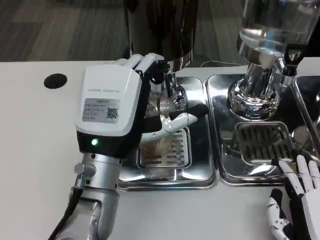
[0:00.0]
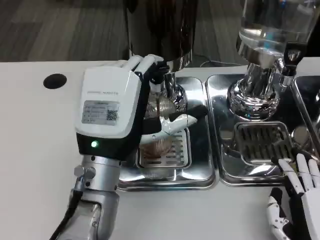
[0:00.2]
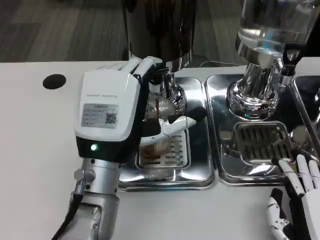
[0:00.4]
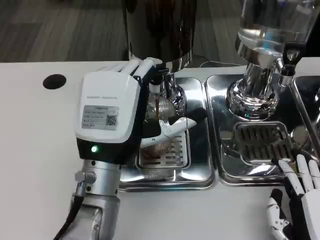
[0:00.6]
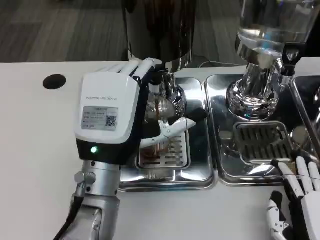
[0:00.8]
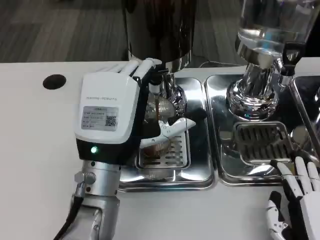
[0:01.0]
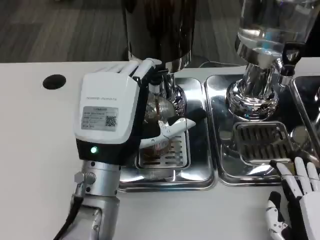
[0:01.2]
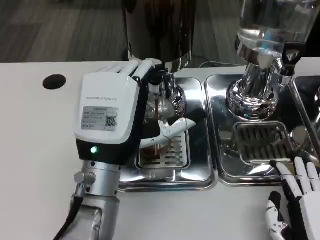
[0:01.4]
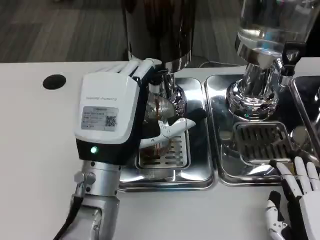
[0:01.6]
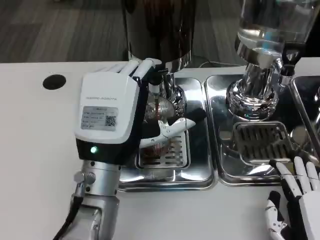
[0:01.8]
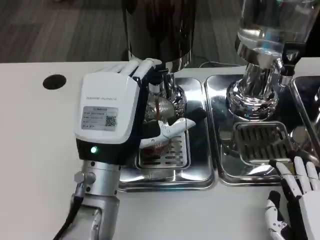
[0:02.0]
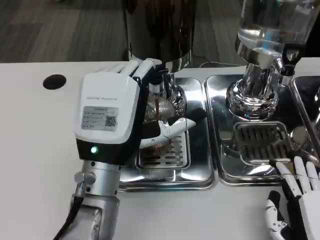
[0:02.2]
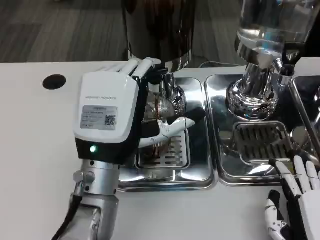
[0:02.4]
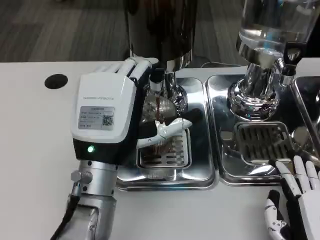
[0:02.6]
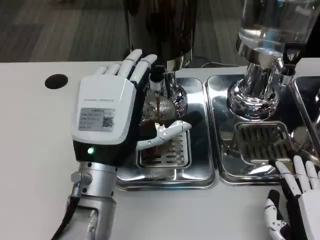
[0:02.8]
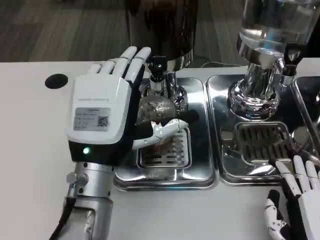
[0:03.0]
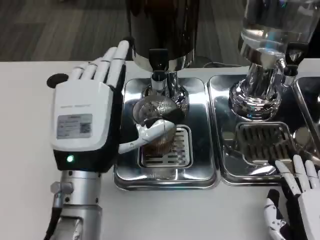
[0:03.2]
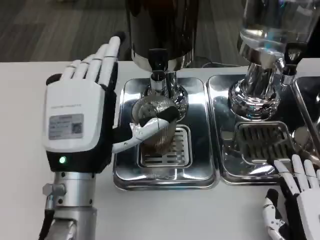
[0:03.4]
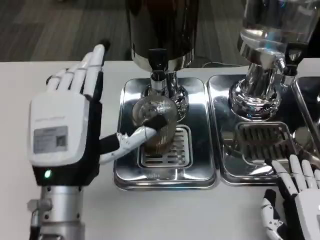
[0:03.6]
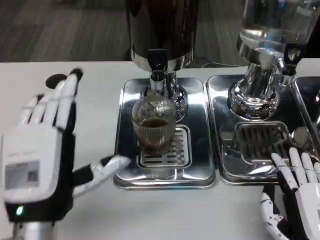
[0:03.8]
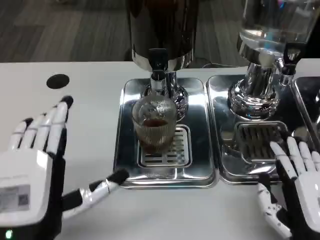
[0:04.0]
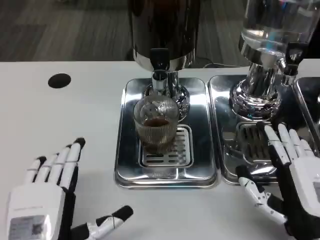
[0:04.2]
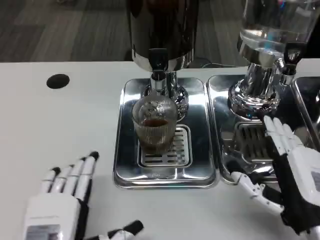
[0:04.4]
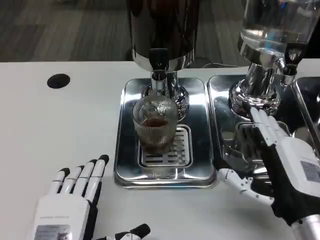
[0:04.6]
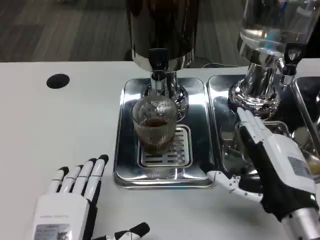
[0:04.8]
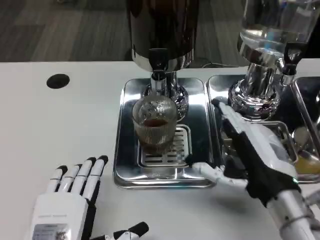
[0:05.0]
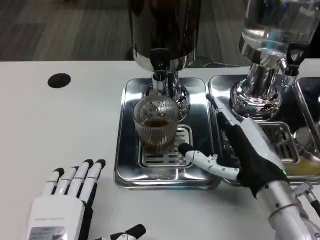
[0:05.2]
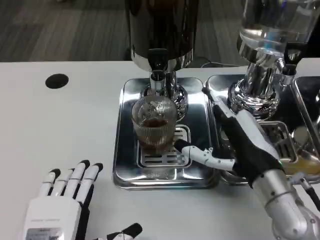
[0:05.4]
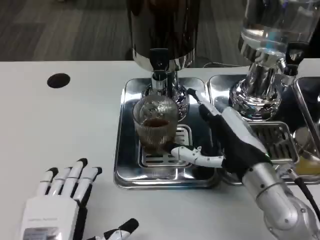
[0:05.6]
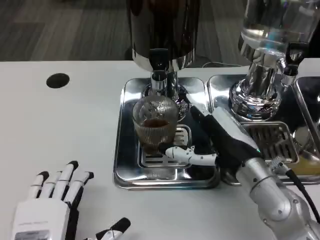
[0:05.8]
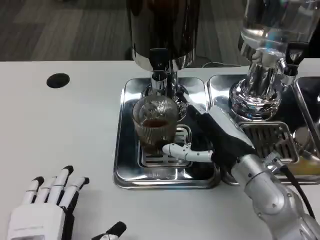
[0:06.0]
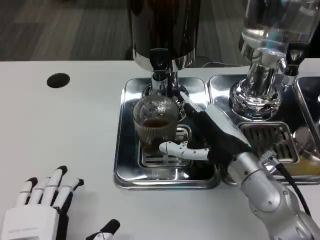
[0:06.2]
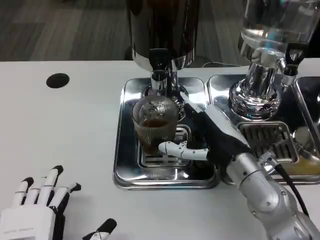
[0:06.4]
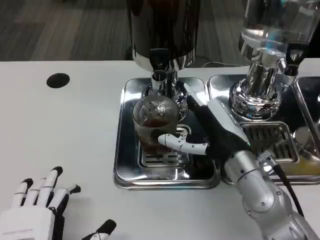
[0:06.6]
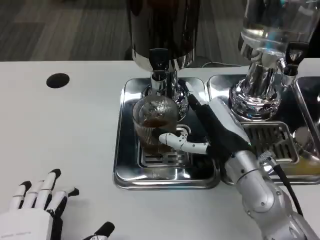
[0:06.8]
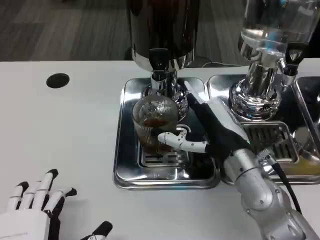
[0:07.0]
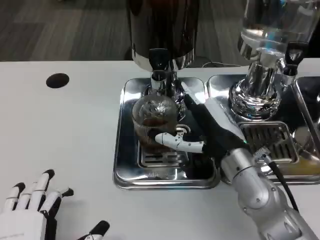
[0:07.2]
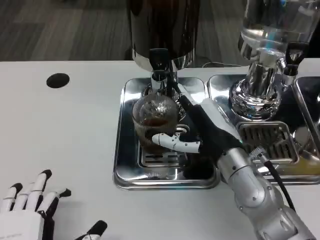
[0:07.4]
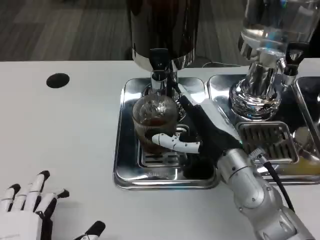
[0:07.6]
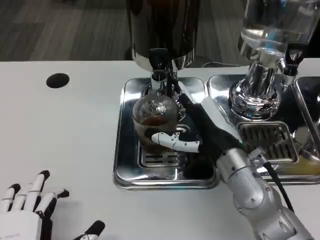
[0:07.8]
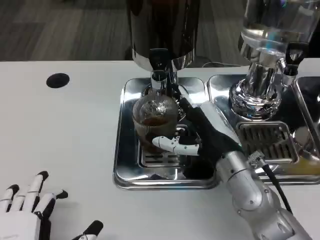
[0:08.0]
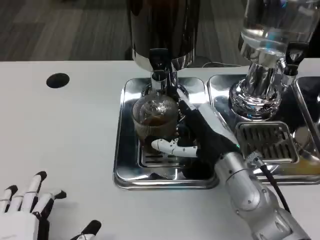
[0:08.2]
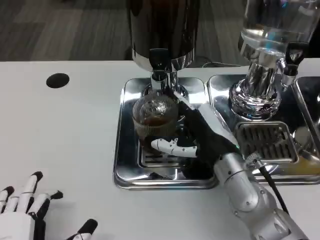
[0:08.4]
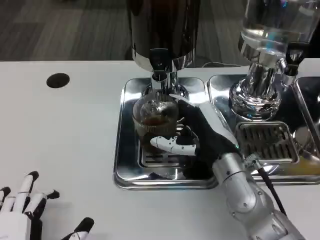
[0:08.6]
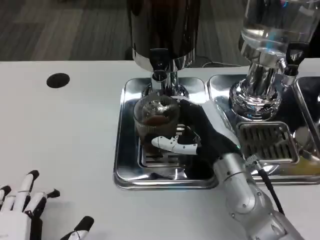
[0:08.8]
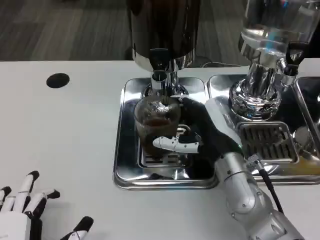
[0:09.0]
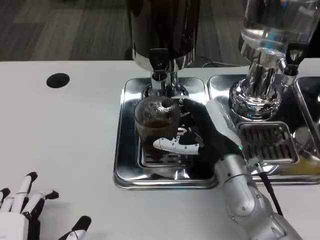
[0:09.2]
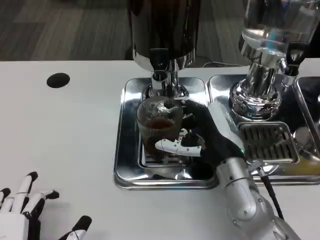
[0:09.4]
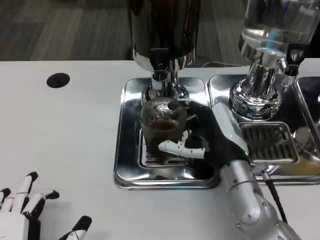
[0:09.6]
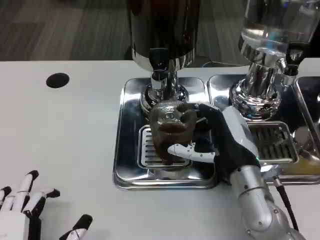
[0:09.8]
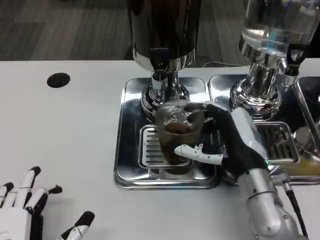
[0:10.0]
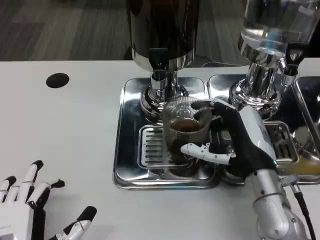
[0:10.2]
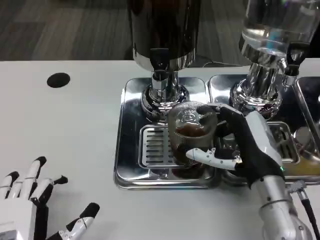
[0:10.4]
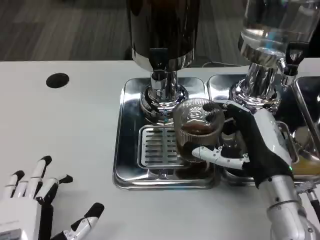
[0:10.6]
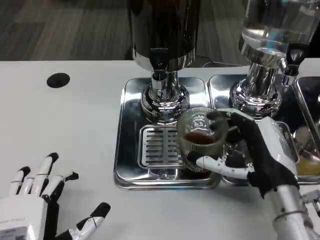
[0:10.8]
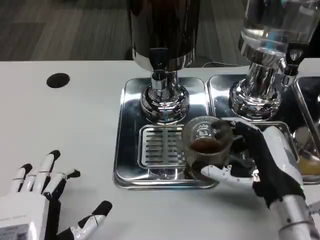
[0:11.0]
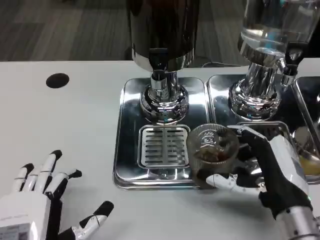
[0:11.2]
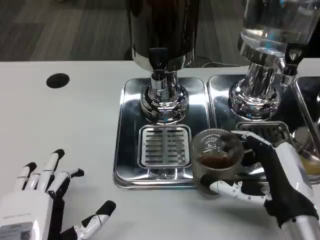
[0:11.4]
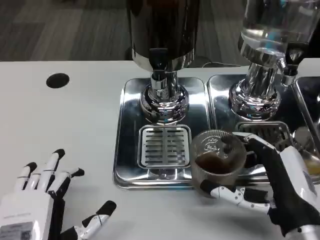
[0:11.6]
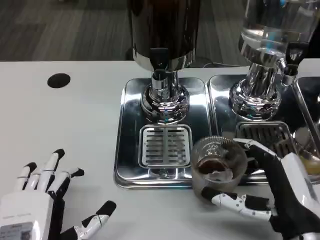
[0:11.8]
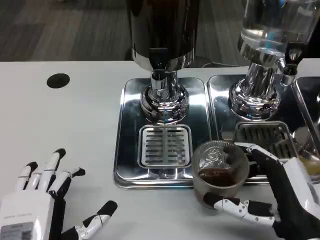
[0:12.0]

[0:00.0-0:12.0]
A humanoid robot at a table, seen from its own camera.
Task of the whole recording: Grasp the cup under the faucet to collect the drink, then remove the cup.
0:00.0 to 0:03.0: Both hands stay about where they are.
0:03.0 to 0:04.4: The right hand shifts by approximately 5 cm; the left hand goes some 15 cm backward, downward and to the left.
0:04.4 to 0:06.0: The right hand moves forward and to the left, roughly 10 cm.
0:06.0 to 0:09.0: The hands make only small movements.
0:09.0 to 0:10.4: The right hand ends up roughly 5 cm from where it was.
0:10.4 to 0:12.0: The right hand travels backward by about 10 cm.

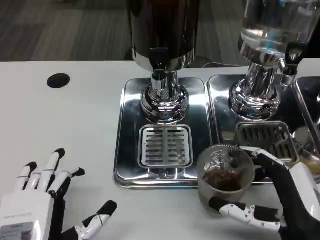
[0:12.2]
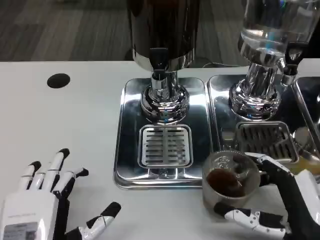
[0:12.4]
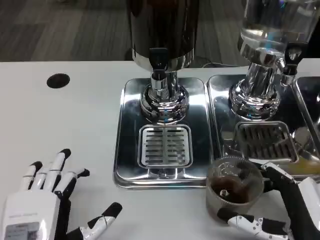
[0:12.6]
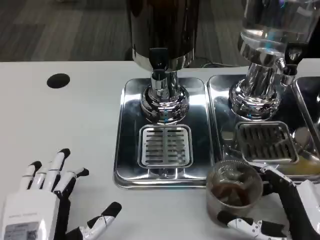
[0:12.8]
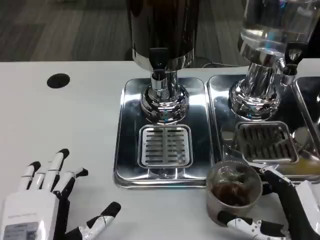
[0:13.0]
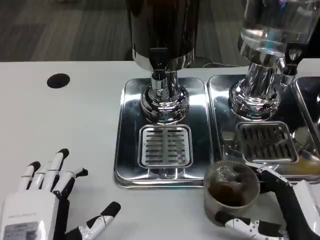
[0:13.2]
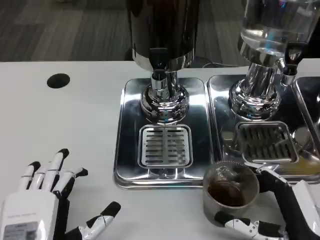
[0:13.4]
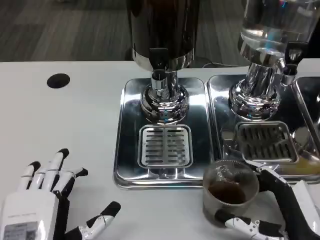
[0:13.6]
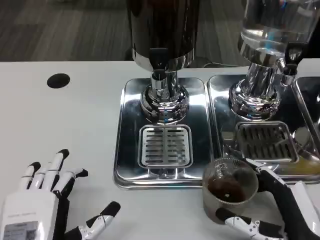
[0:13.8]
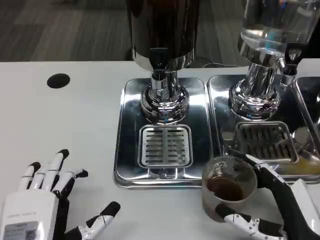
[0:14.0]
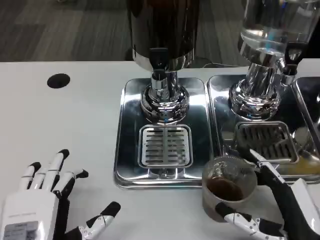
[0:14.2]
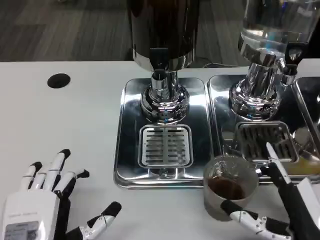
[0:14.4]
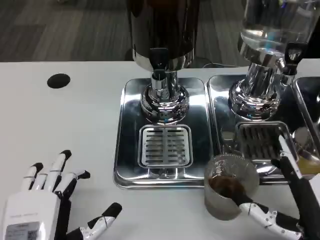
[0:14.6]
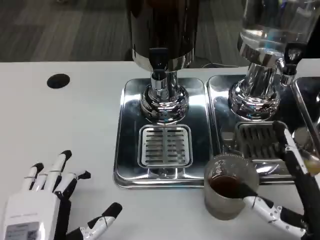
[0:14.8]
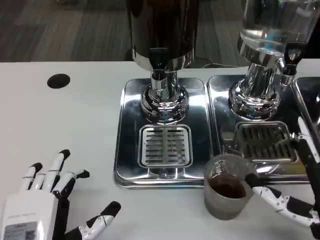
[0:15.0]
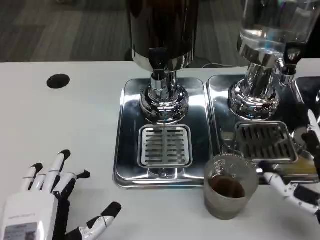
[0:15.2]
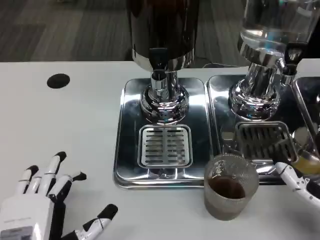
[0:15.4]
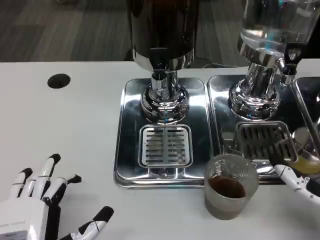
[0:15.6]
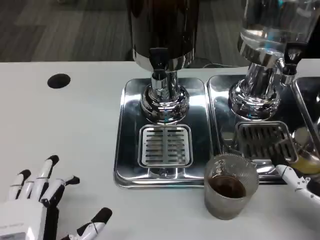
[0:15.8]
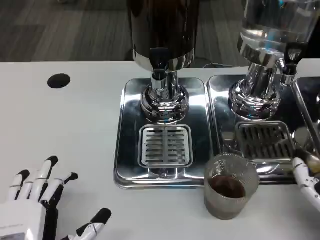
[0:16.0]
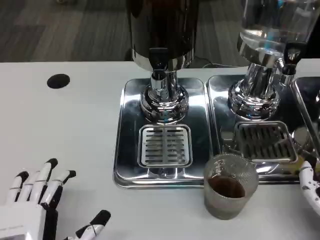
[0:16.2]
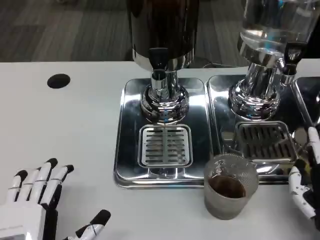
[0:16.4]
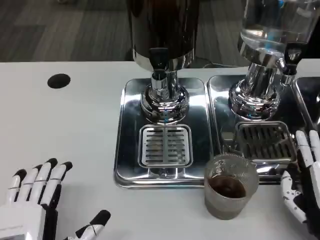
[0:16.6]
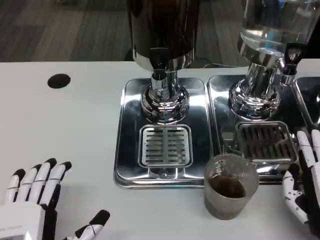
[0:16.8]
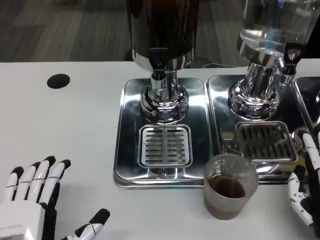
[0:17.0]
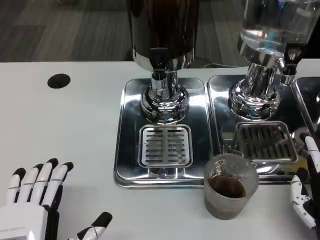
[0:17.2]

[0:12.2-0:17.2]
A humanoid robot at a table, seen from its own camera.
Task of the whole recording: Grasp the cup under the faucet to collect the drink, then remove the cup.
0:12.2 to 0:13.8: There are only small adjustments of the hands.
0:13.8 to 0:15.6: The right hand moves roughly 5 cm.

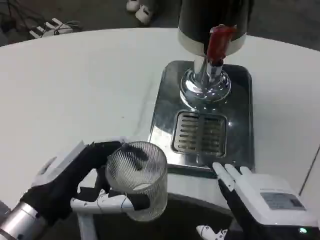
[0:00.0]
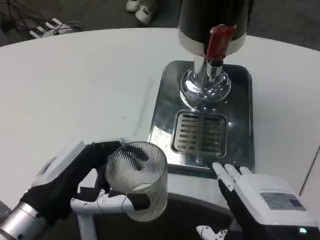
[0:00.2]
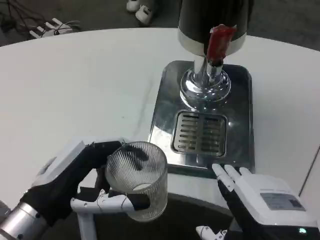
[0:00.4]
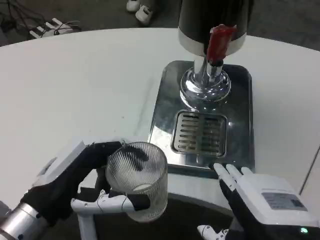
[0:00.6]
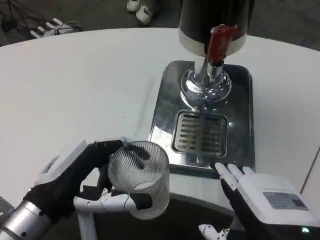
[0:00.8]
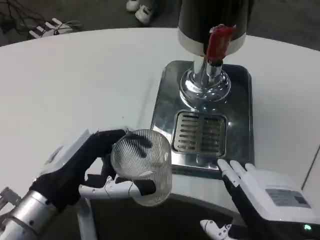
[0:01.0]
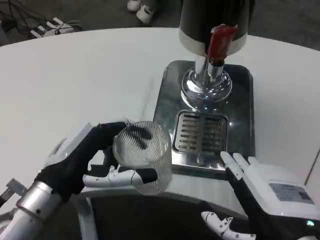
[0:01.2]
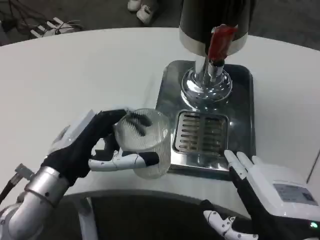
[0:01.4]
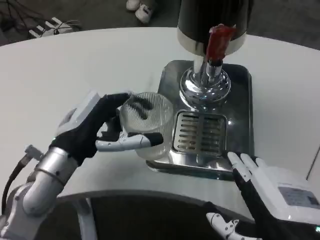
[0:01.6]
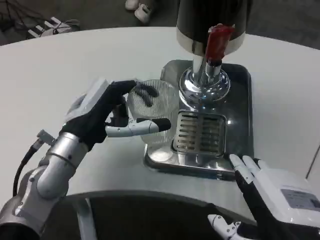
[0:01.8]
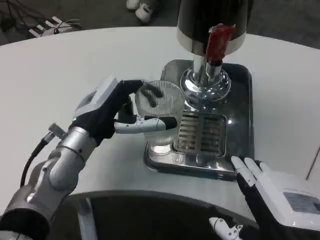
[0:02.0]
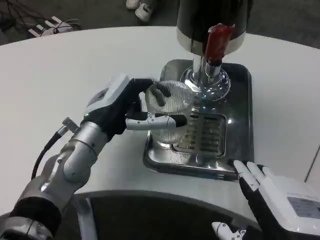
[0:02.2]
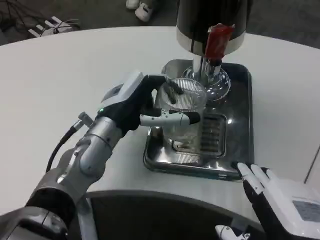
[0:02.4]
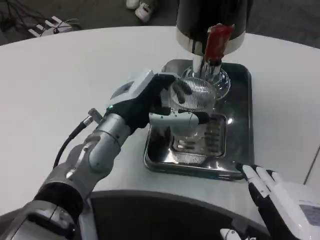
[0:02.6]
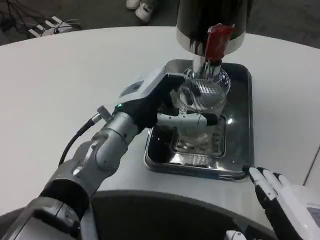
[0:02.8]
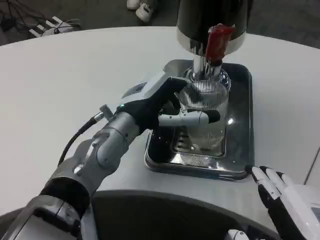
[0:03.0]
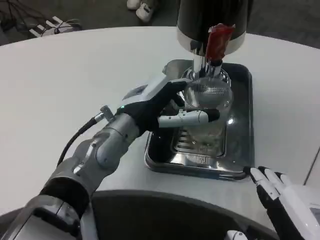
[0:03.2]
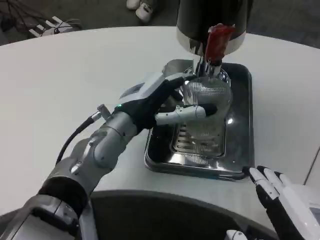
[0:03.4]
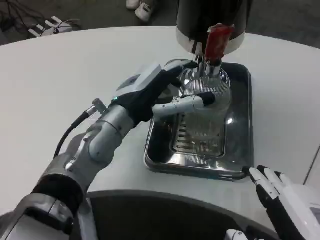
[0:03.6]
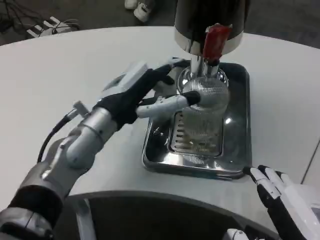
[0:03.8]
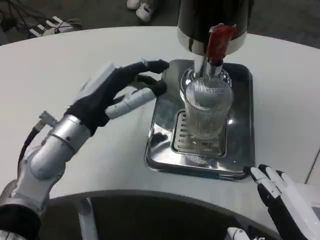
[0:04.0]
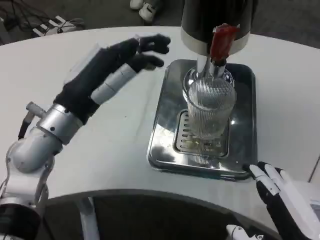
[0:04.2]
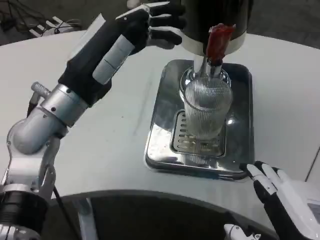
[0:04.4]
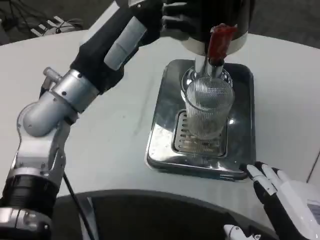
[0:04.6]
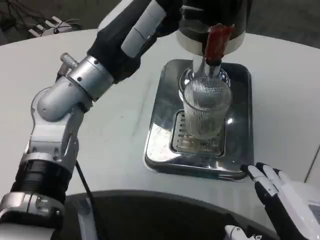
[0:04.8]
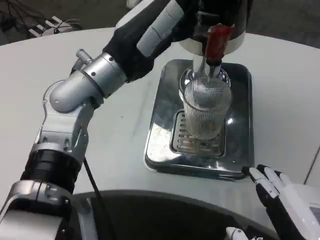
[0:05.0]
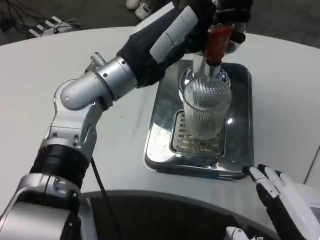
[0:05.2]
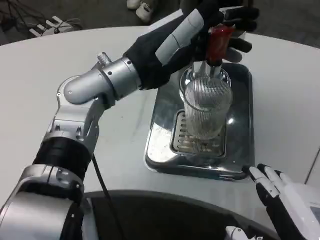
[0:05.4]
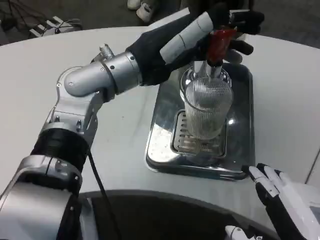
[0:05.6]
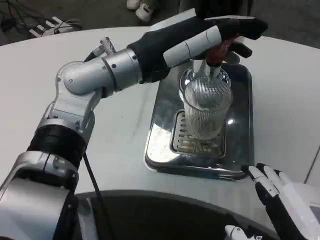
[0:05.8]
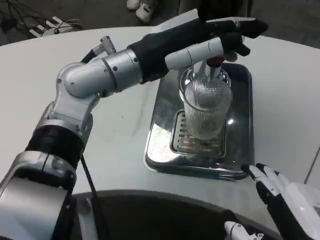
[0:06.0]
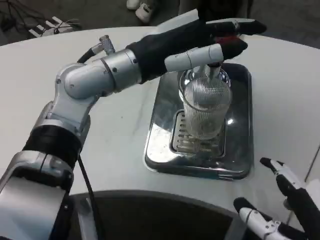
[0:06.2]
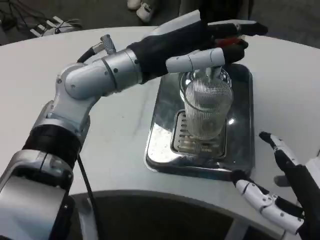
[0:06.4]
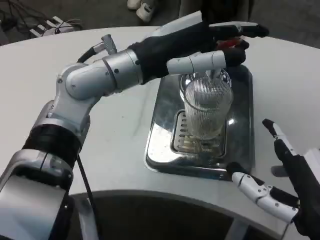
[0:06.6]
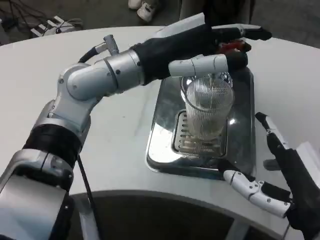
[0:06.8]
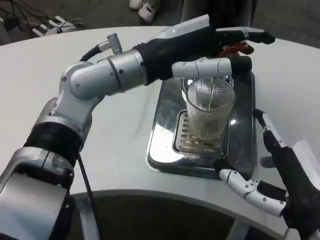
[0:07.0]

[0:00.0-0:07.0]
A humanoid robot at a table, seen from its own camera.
Task of the whole recording: Grasp the cup under the faucet to collect the drink, then remove the cup.
0:00.0 to 0:01.4: The left hand goes some 5 cm forward.
0:01.4 to 0:02.8: The left hand heads to the right and forward, covering roughly 10 cm.
0:02.8 to 0:04.2: The left hand goes roughly 10 cm to the left.
0:04.2 to 0:05.6: The left hand travels upward and to the right by about 10 cm.
